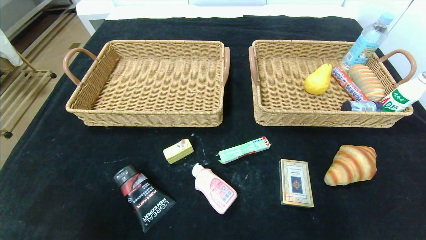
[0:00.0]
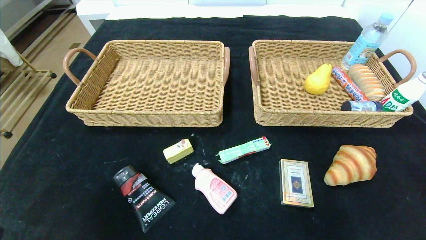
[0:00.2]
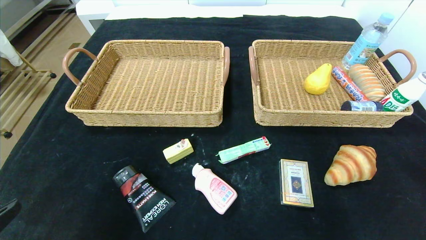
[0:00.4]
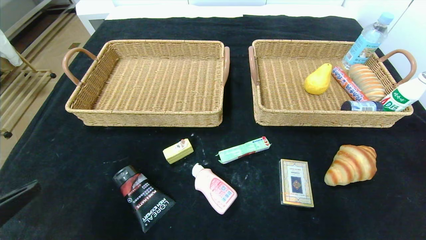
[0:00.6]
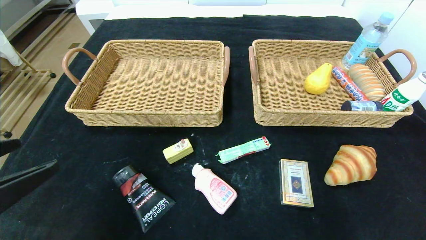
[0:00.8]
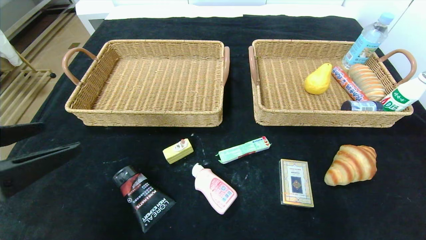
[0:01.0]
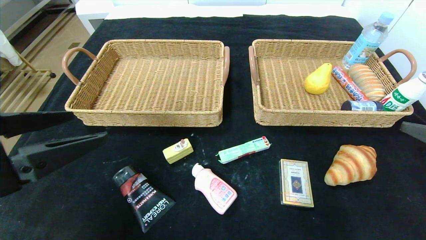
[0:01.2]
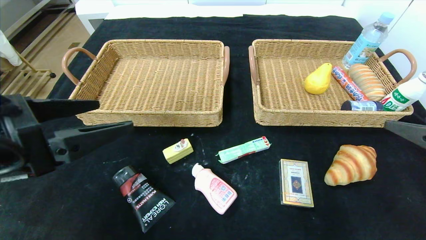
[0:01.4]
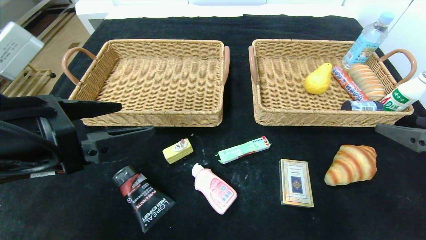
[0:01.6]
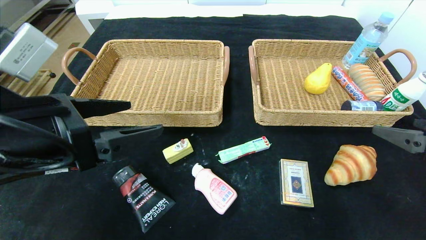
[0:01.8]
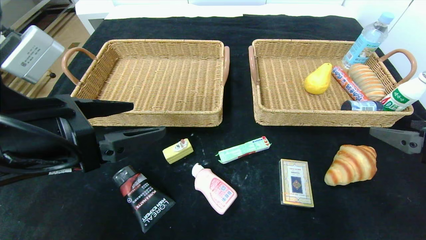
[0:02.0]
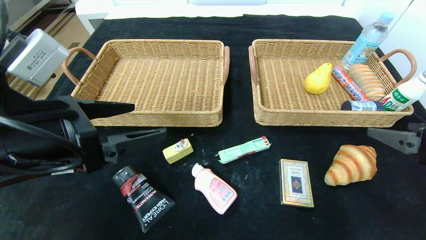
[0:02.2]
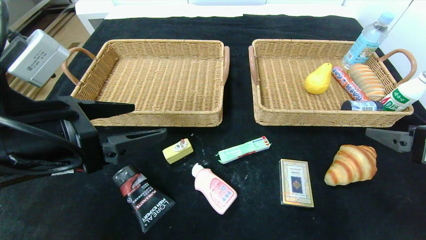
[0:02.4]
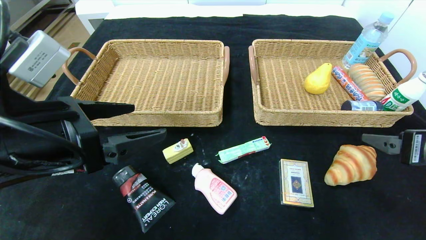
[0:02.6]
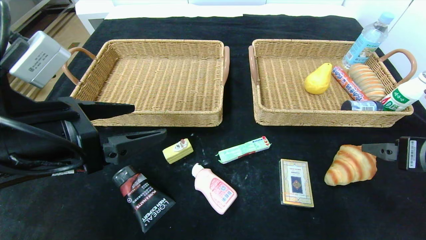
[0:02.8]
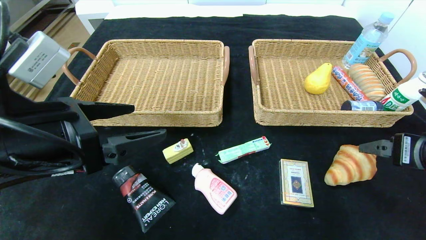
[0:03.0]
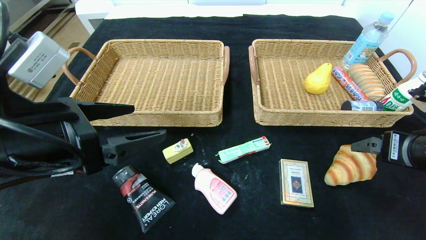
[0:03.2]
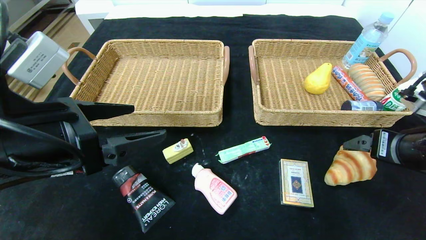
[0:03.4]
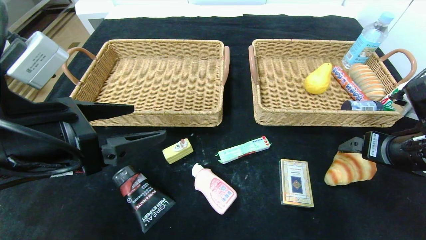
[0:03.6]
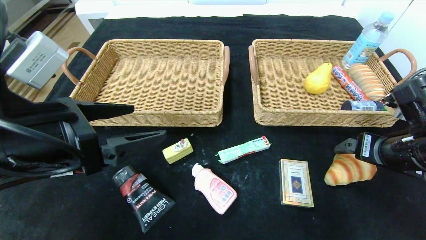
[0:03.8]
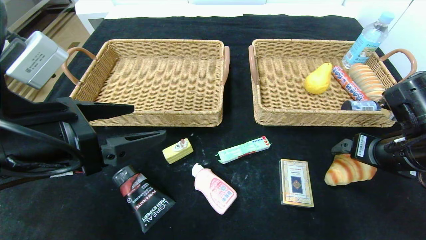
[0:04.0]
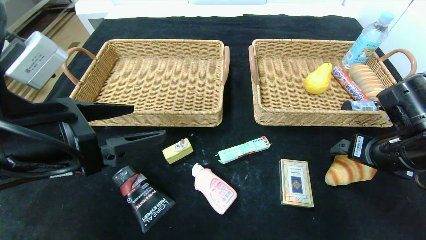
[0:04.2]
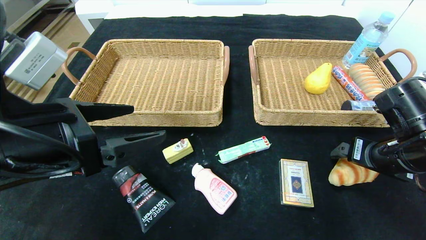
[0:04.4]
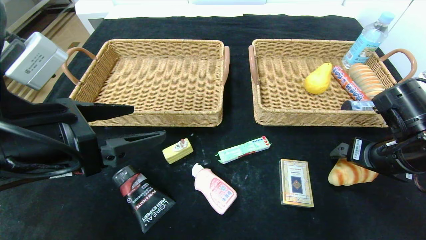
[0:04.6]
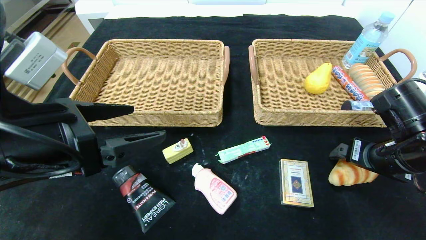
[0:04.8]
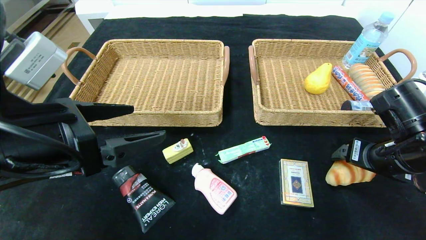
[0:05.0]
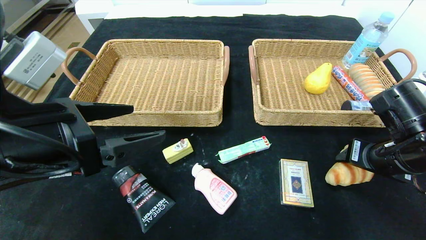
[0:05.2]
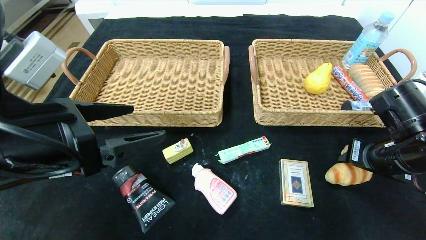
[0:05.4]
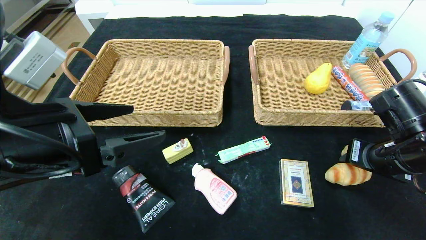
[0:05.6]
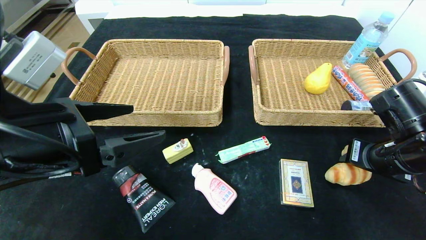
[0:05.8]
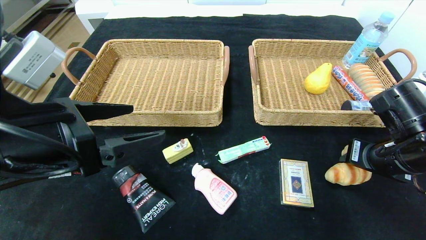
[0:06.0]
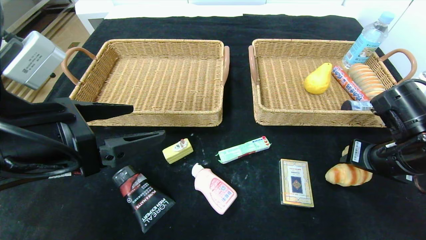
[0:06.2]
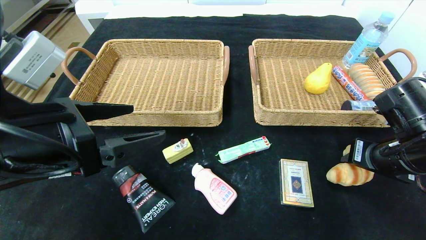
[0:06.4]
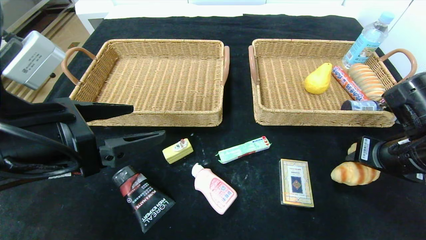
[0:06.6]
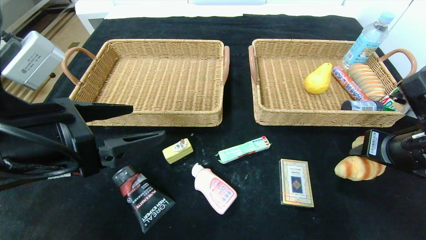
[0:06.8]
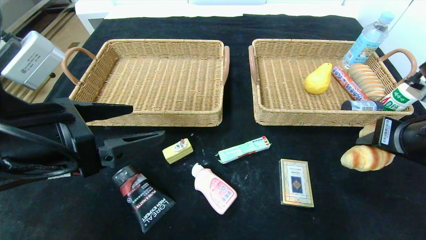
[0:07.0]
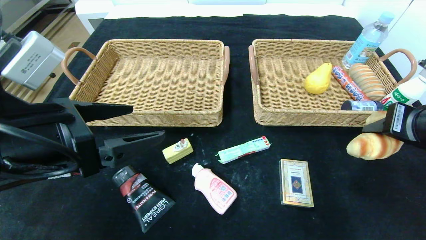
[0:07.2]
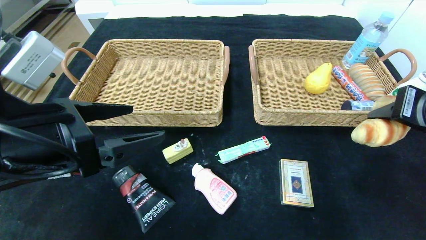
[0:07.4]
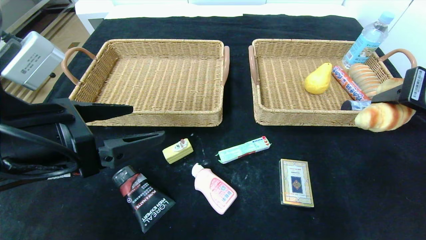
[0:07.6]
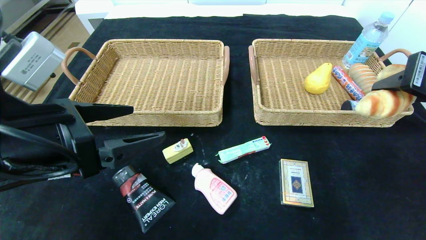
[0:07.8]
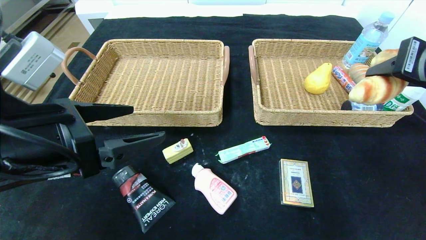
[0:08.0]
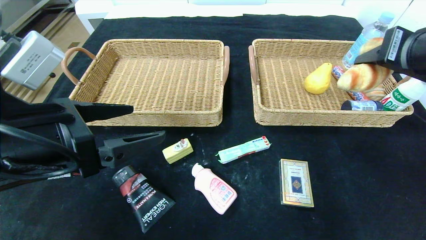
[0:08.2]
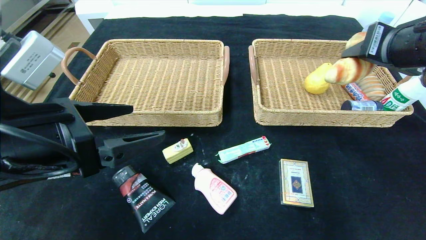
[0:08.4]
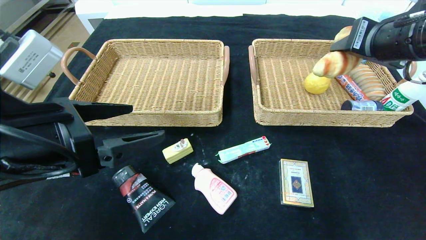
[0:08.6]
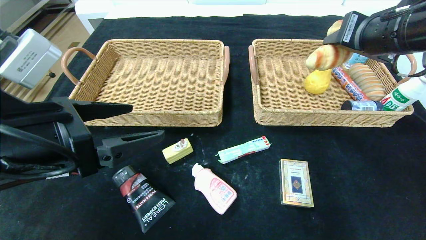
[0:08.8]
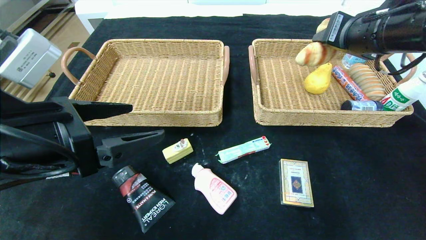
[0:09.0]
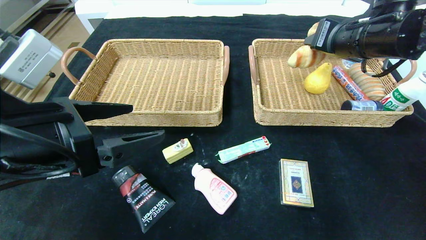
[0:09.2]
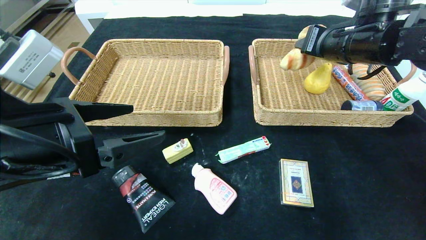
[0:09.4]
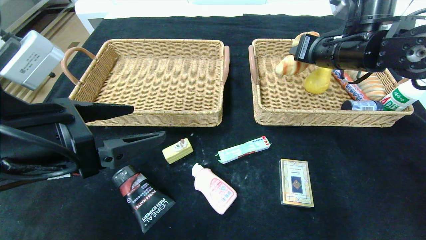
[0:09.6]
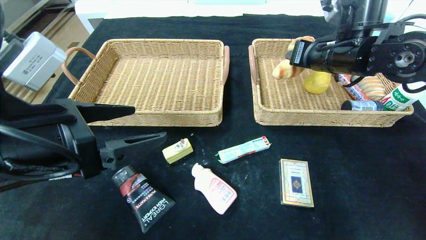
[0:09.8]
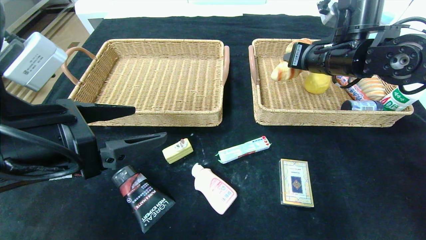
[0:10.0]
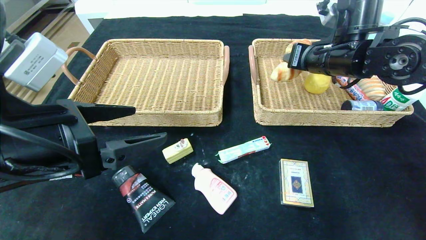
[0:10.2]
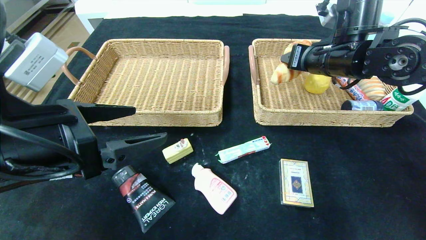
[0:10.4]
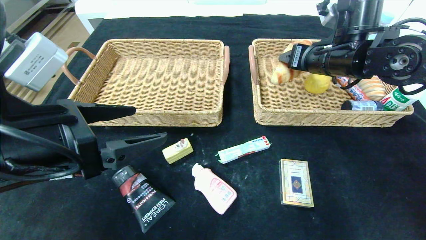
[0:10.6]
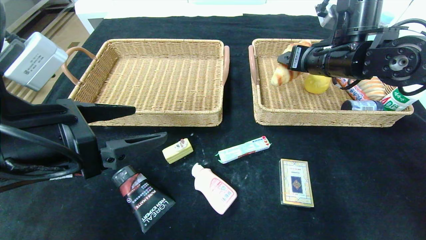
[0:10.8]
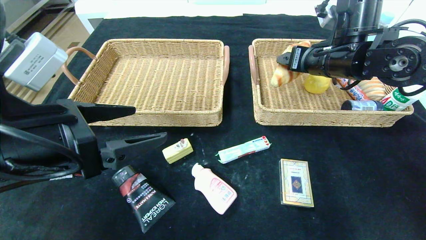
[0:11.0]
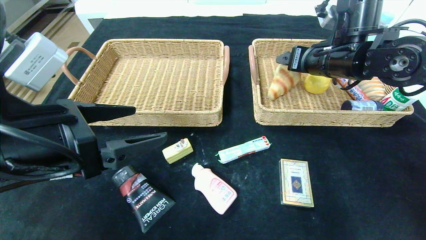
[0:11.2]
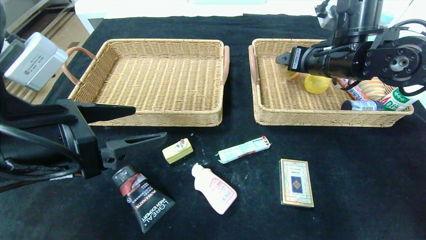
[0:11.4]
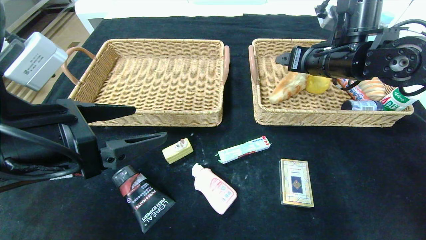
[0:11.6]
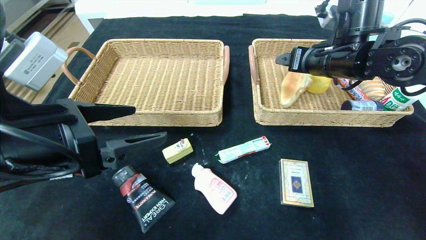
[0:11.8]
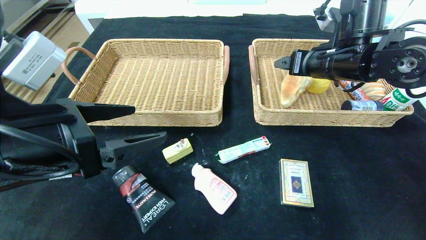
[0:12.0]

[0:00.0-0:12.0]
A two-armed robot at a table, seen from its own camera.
Step, 0.0 to 11.6 s: Grasp the croissant and put it in the right basket.
0.0 to 1.6 s: Both grippers move forward and upward, some 20 cm.
3.0 to 4.4 s: The right gripper shifts some 5 cm forward.
4.4 to 6.0 s: The right gripper closes its fingers.
6.0 to 7.6 s: The right gripper goes some 10 cm upward.
7.6 to 9.0 s: The right gripper moves forward and to the left, about 15 cm.
9.0 to 10.4 s: The right gripper shifts roughly 5 cm forward.
10.4 to 12.0 s: The right gripper opens its fingers.

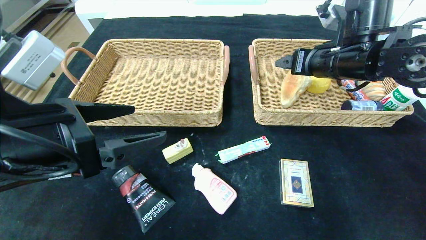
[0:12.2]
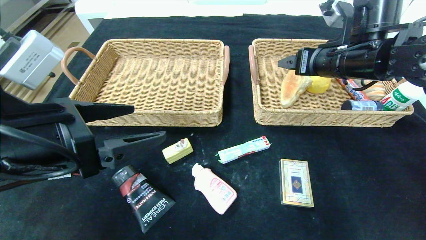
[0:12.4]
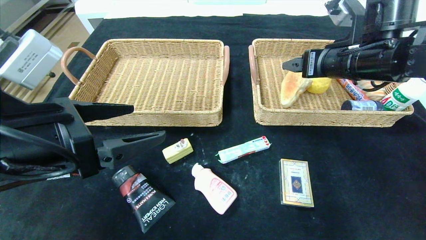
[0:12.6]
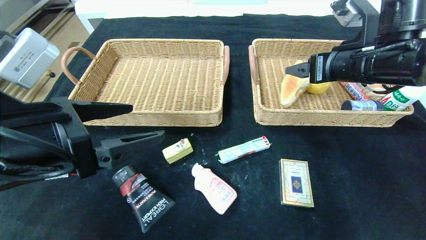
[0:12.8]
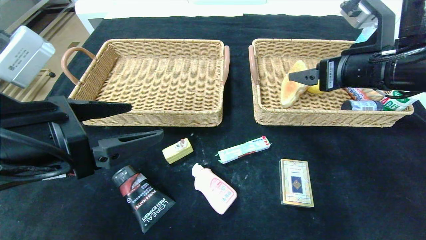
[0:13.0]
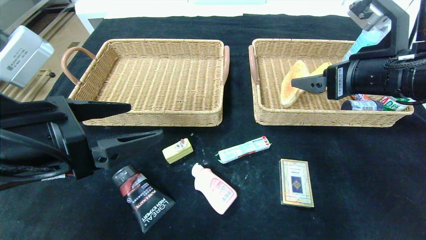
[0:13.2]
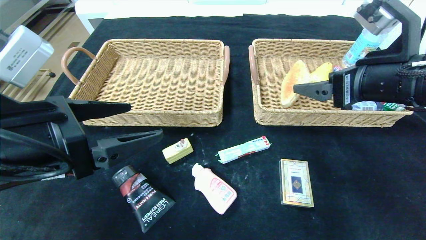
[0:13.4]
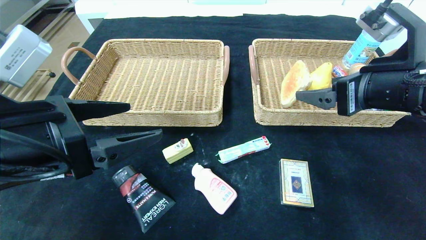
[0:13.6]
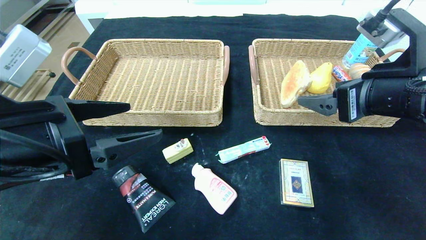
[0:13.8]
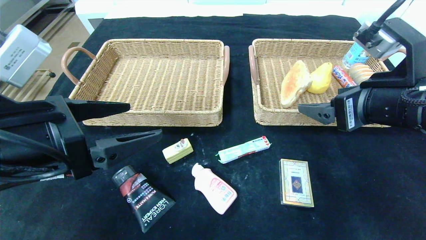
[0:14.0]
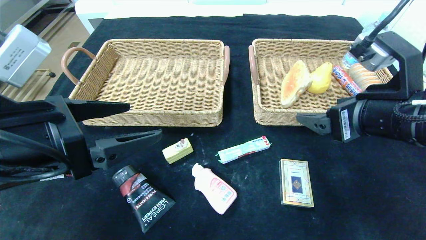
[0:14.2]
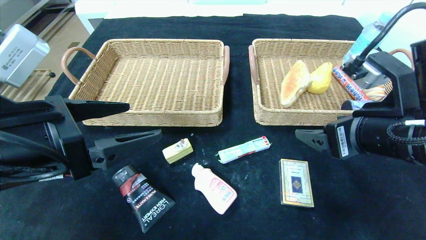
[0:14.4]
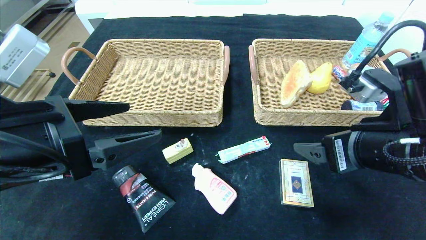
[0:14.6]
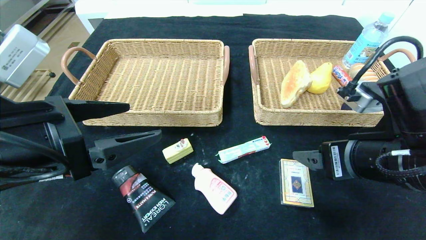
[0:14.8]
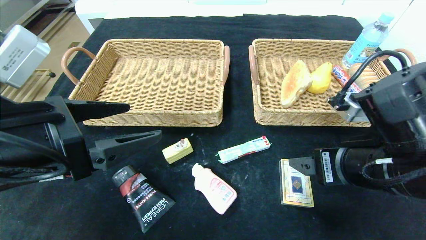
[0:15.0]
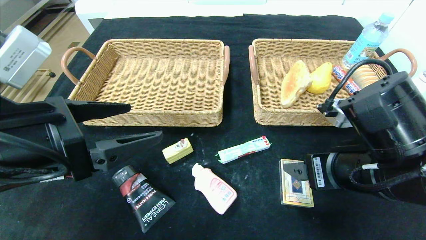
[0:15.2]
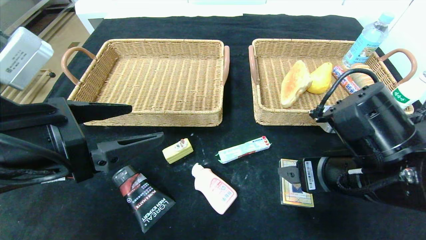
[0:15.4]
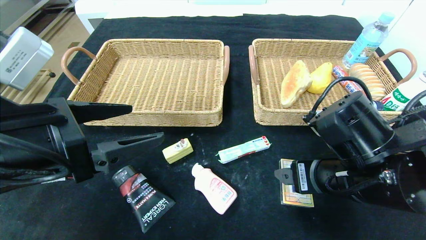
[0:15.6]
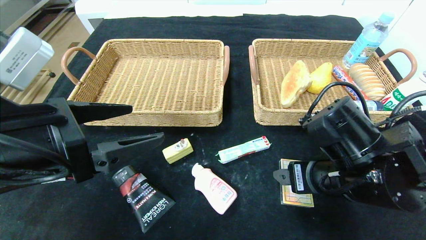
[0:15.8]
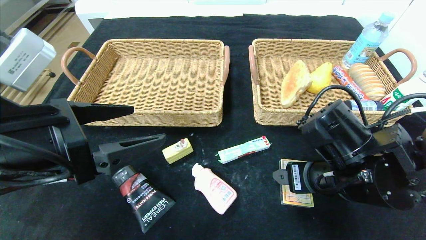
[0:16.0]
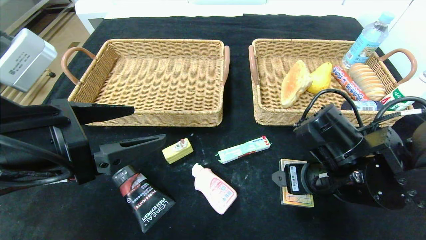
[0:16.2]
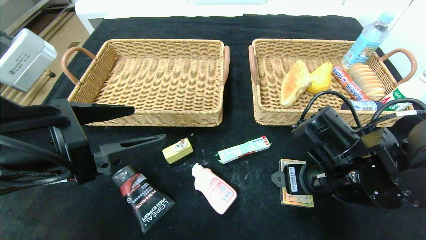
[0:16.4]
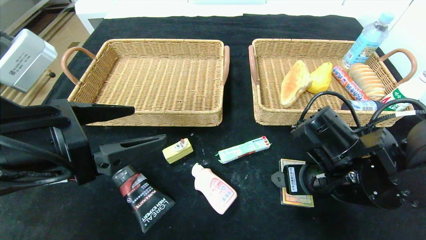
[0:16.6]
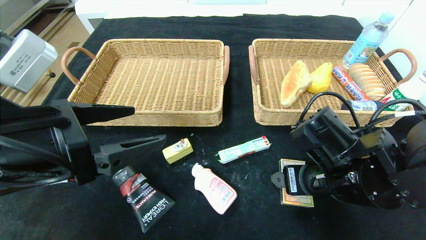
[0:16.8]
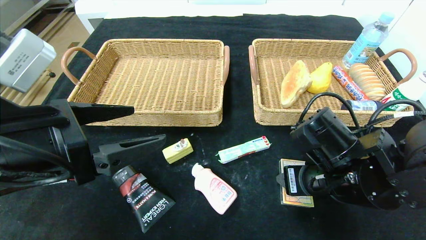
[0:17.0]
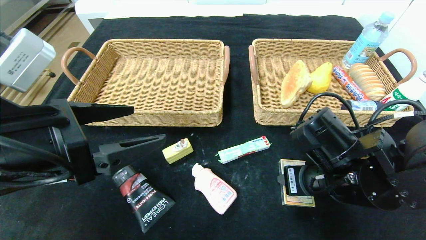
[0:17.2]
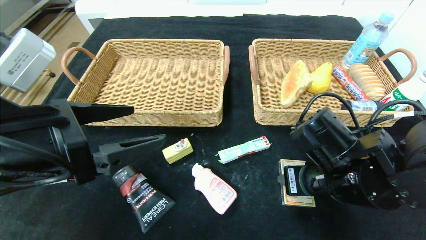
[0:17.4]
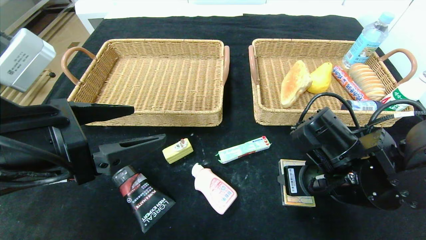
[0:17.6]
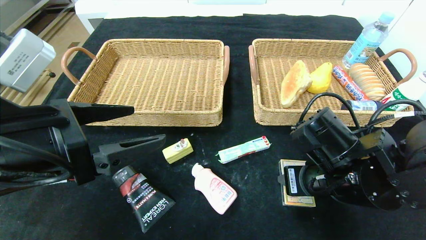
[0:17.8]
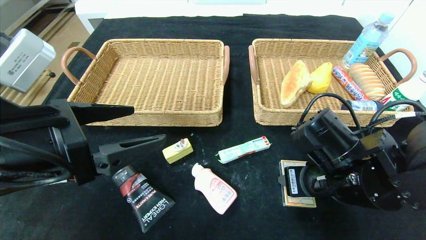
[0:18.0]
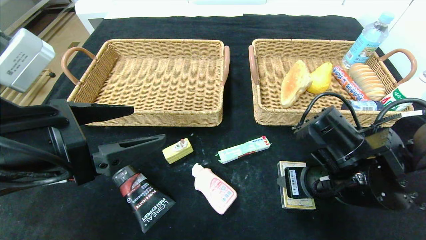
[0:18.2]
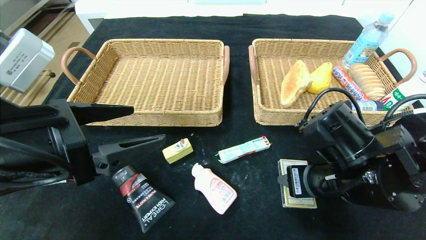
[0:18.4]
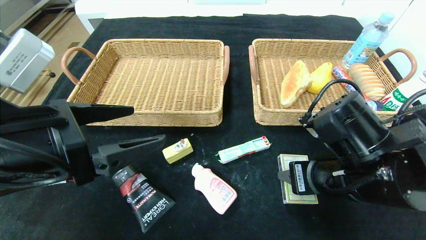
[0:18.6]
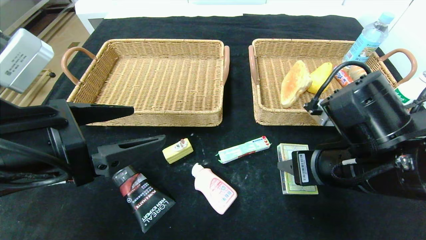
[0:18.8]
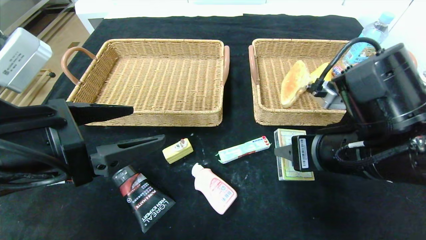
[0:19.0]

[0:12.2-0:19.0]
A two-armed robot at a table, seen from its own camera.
12.2 to 13.6 s: The right gripper is displaced backward by approximately 15 cm.
13.6 to 15.0 s: The right gripper shifts some 5 cm downward.
15.0 to 16.2 s: The right gripper moves approximately 5 cm.
16.2 to 17.6 s: The right gripper closes.
17.6 to 19.0 s: The right gripper heads upward, covering about 5 cm.
